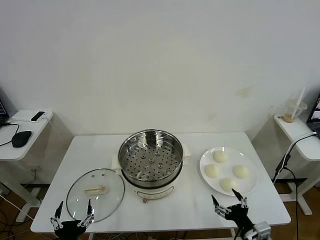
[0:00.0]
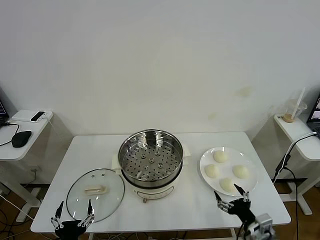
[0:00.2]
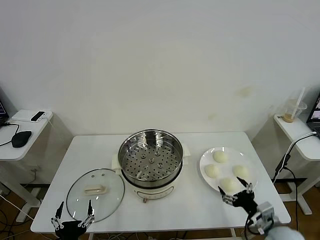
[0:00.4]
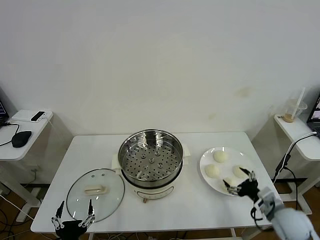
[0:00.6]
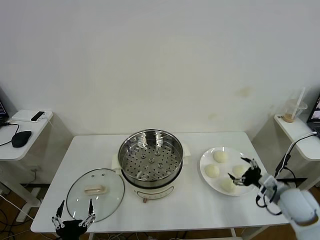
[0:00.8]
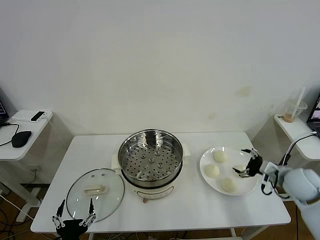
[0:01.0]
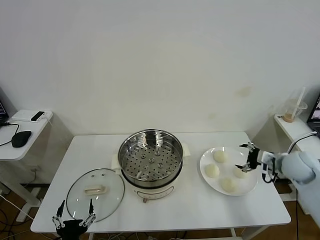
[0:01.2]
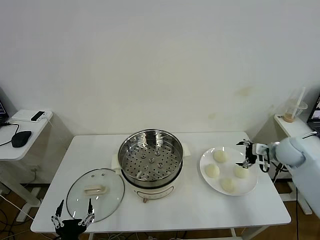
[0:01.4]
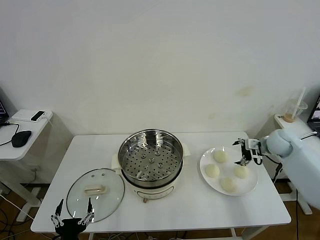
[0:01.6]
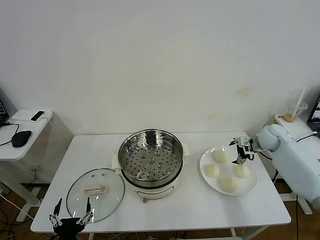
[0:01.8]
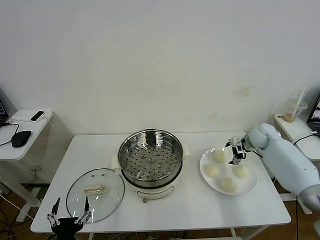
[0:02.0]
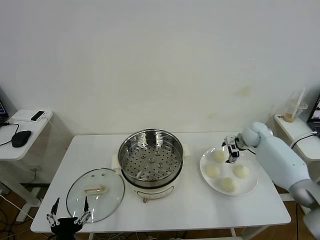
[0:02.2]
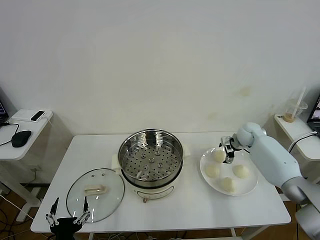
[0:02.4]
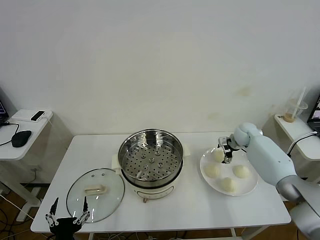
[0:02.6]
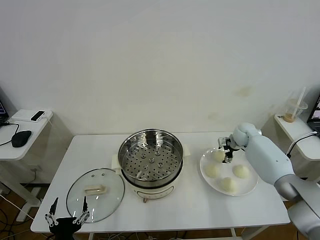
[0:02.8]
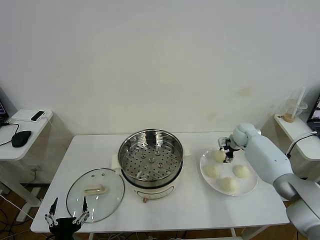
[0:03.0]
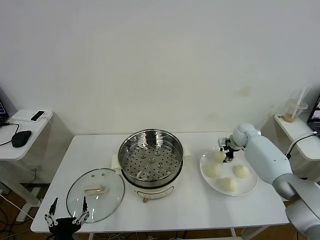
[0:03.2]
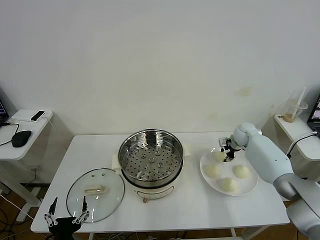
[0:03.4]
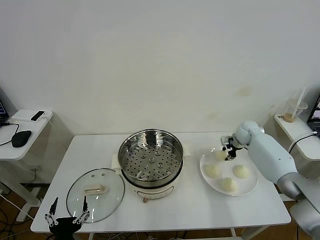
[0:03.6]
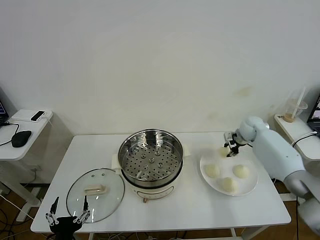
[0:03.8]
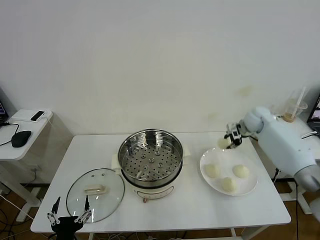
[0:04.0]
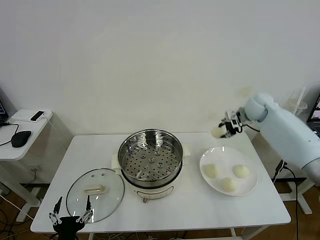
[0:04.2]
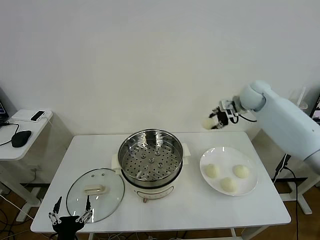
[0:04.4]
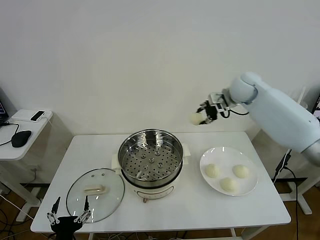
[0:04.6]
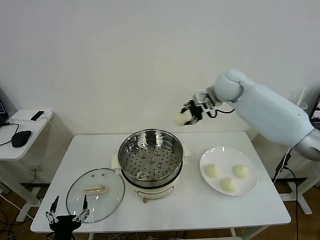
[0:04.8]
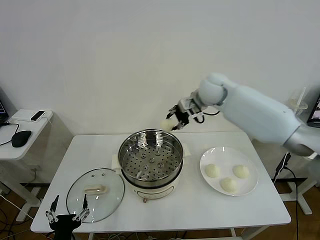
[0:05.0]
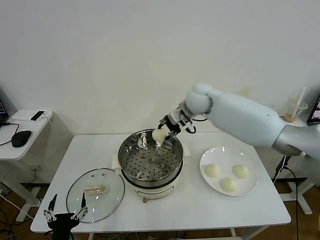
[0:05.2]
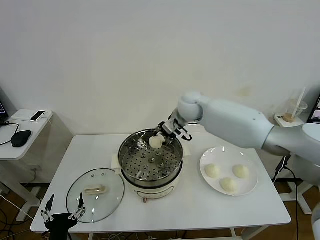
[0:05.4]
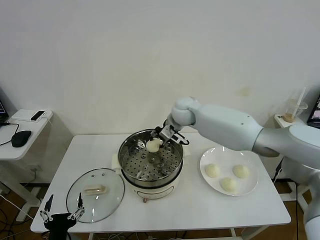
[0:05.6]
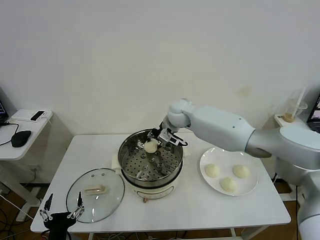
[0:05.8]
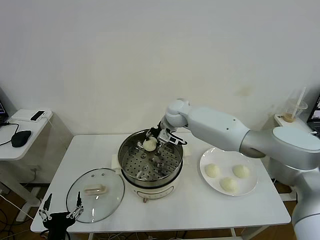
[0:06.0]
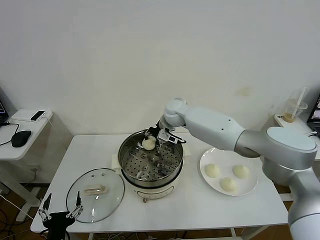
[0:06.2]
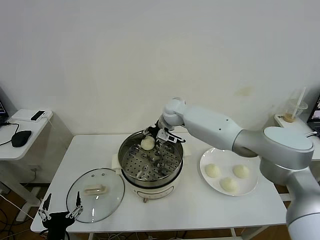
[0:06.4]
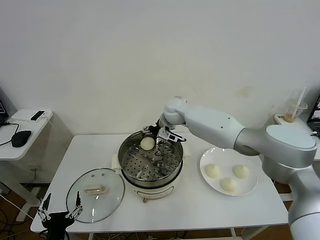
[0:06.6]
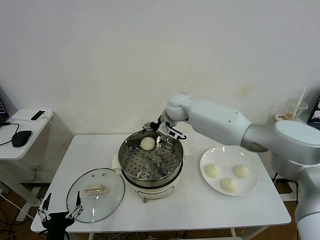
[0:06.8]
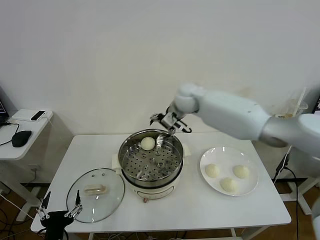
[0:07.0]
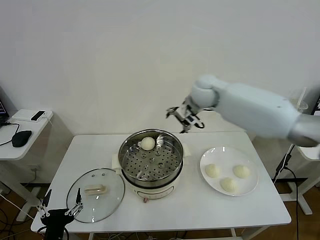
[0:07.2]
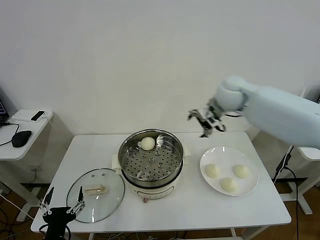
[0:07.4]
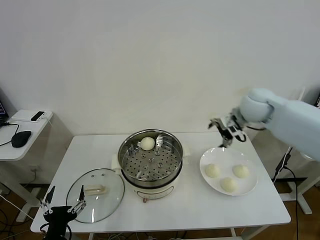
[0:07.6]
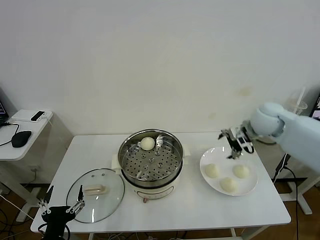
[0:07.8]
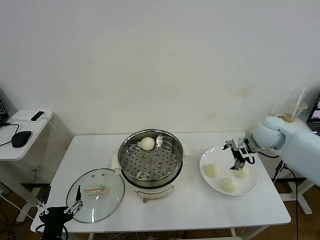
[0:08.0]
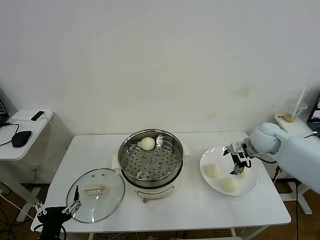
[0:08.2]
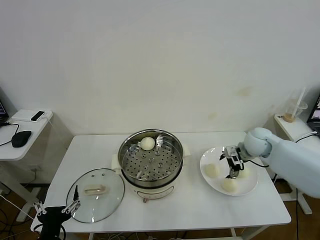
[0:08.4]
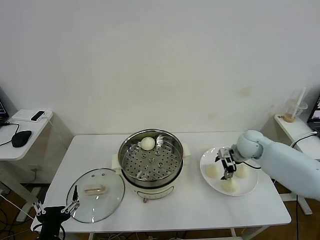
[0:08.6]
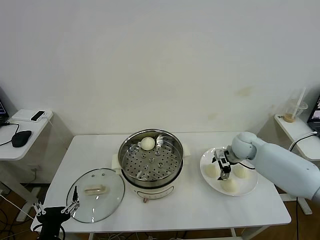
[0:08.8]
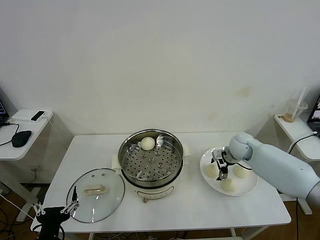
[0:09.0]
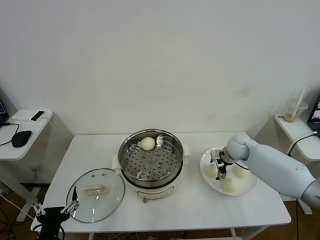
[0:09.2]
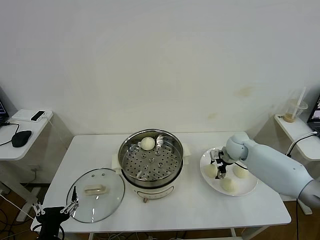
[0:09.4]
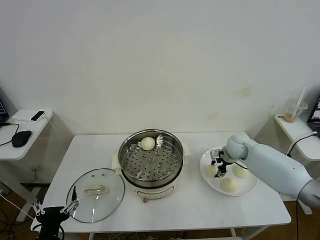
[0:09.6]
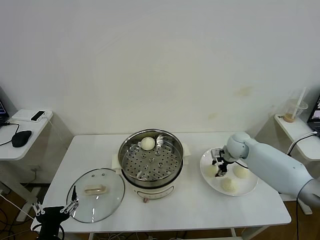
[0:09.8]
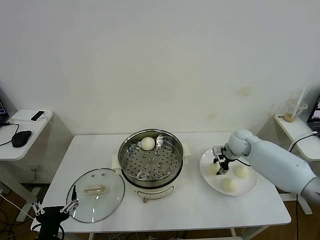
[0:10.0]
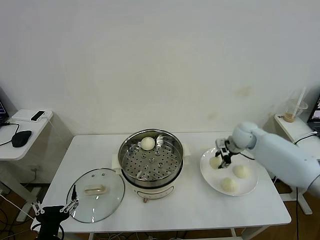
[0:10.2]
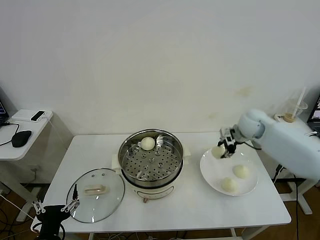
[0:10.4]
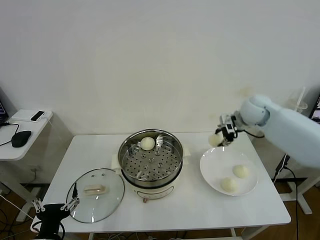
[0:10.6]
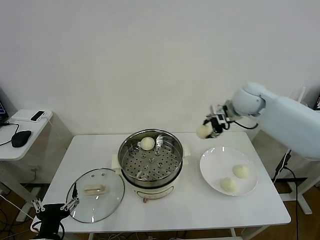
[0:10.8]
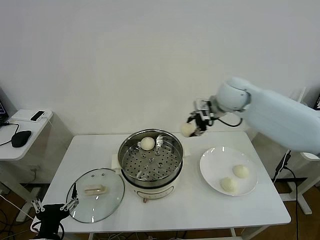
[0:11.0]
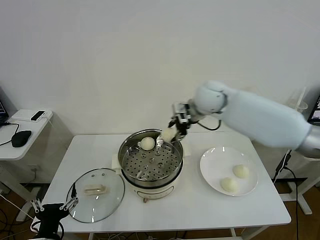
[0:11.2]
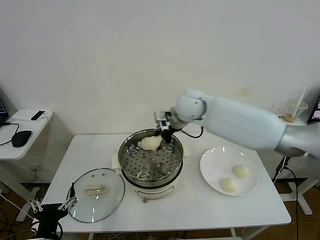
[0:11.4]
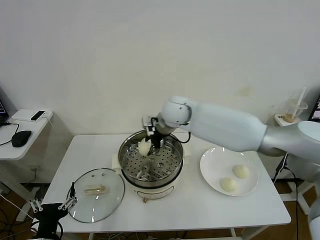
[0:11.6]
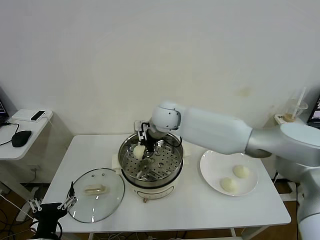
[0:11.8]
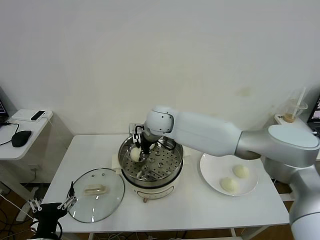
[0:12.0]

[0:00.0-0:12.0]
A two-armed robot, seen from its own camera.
Task of the whole recording: take steamed baozi put them in steamer then cover it.
Step, 0:00.0 to 0:03.4: Grasp the baozi in the plate with right gripper.
Step, 0:03.6 to 0:06.4: Place the baozi on the steamer with right gripper.
Step, 0:06.6 to 0:09.8: Grasp the baozi in the plate with right gripper.
0:01.6 to 0:03.0: The right gripper moves forward, to the left and downward, approximately 10 cm, and closes up.
0:03.0 to 0:04.4: The right gripper shifts some 20 cm upward, and closes.
0:04.4 to 0:06.0: The right gripper is displaced to the left and downward by roughly 25 cm.
0:06.0 to 0:07.6: The right gripper is displaced to the right by some 25 cm, and opens up.
0:07.6 to 0:09.0: The right gripper is displaced downward by roughly 20 cm.
0:09.0 to 0:10.4: The right gripper shifts roughly 15 cm upward, and closes its fingers.
0:10.4 to 0:12.0: The right gripper moves to the left, approximately 35 cm.

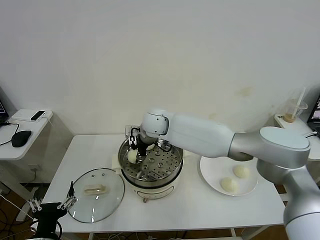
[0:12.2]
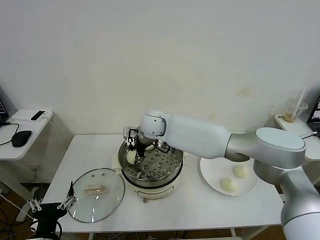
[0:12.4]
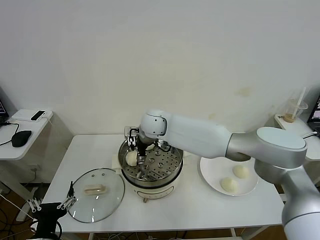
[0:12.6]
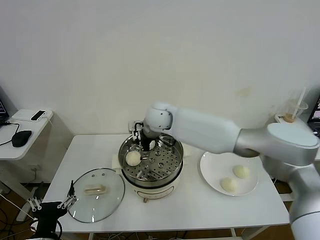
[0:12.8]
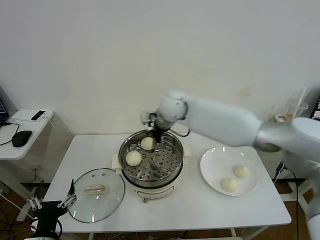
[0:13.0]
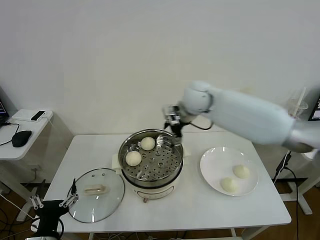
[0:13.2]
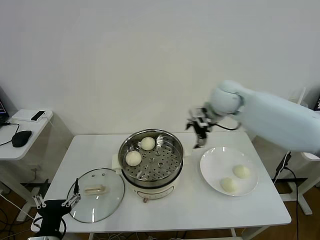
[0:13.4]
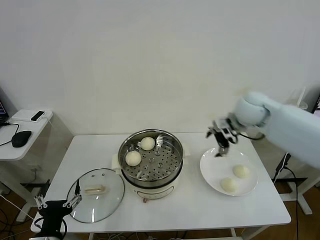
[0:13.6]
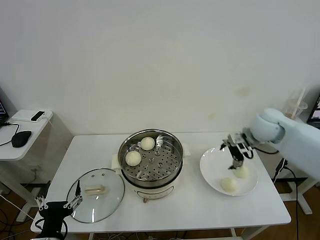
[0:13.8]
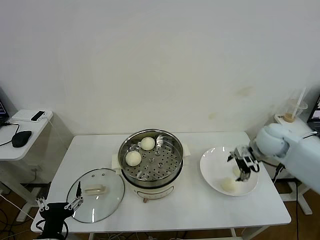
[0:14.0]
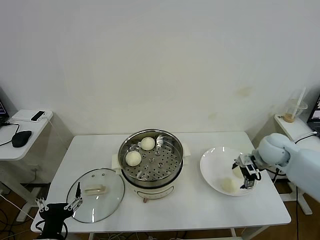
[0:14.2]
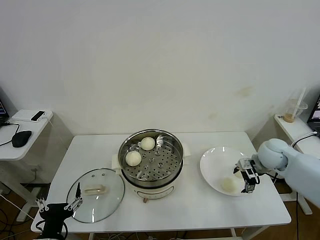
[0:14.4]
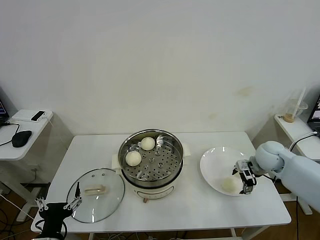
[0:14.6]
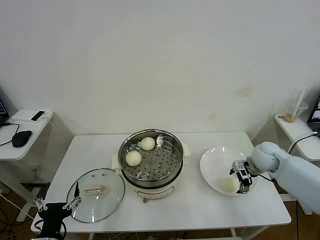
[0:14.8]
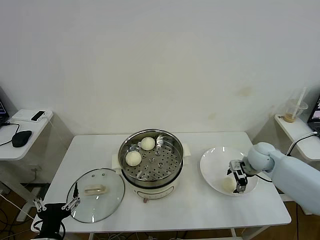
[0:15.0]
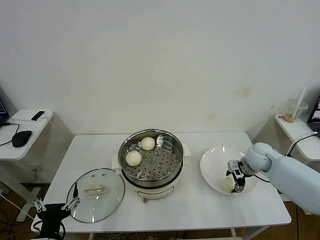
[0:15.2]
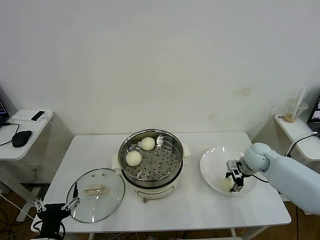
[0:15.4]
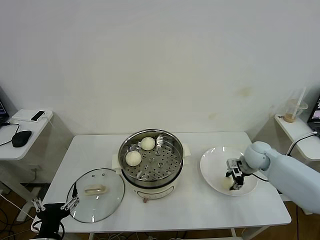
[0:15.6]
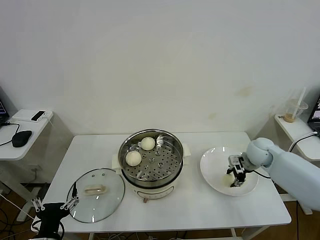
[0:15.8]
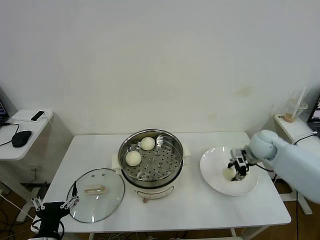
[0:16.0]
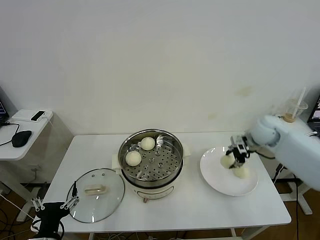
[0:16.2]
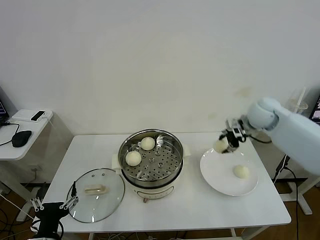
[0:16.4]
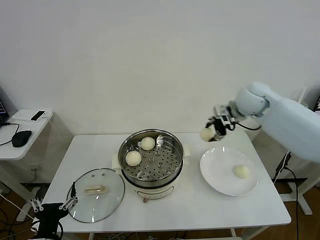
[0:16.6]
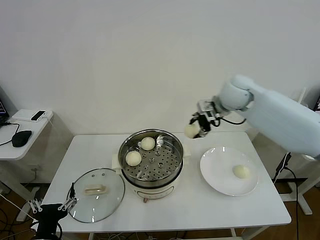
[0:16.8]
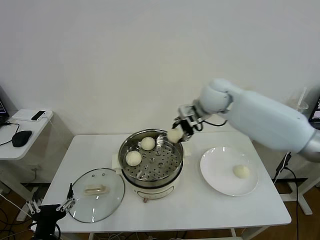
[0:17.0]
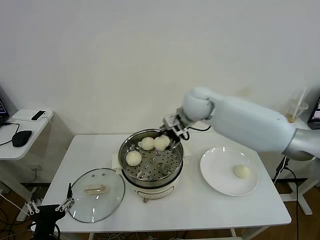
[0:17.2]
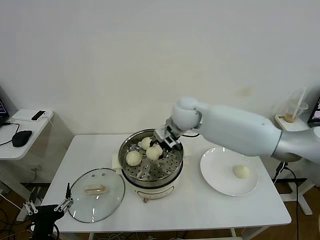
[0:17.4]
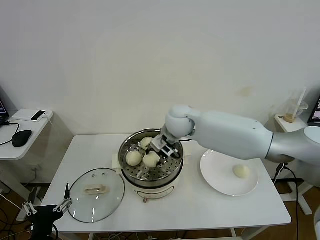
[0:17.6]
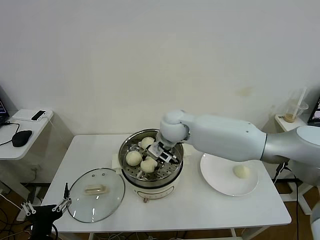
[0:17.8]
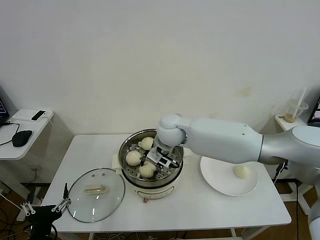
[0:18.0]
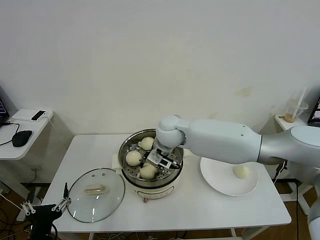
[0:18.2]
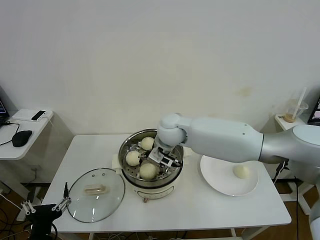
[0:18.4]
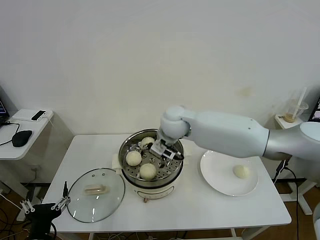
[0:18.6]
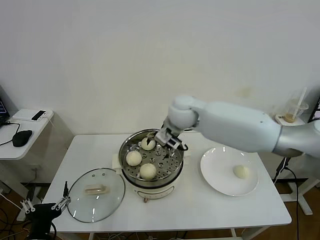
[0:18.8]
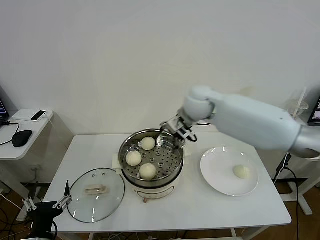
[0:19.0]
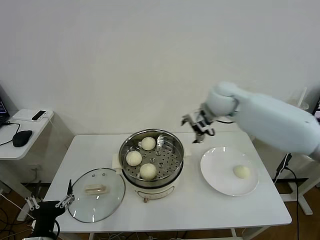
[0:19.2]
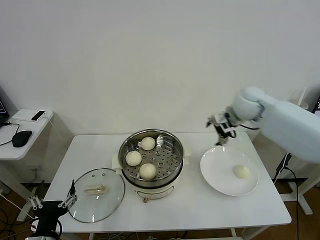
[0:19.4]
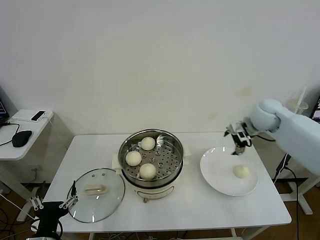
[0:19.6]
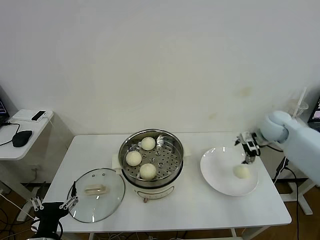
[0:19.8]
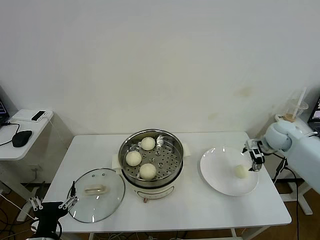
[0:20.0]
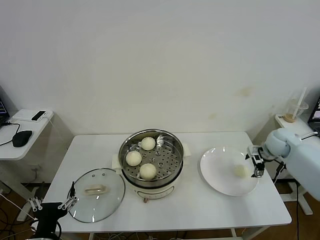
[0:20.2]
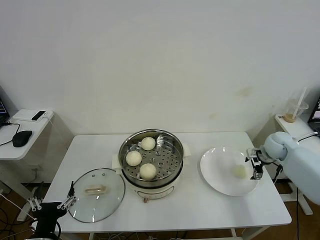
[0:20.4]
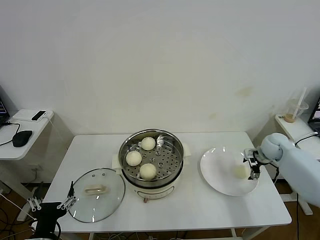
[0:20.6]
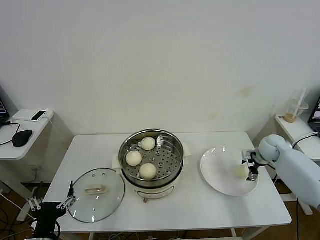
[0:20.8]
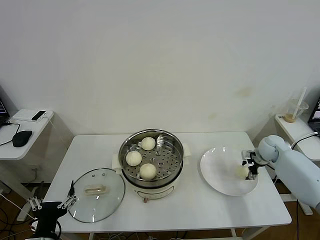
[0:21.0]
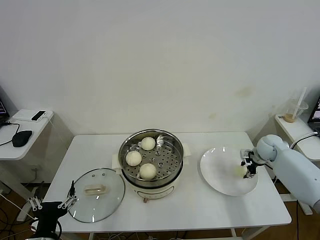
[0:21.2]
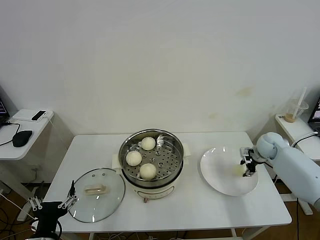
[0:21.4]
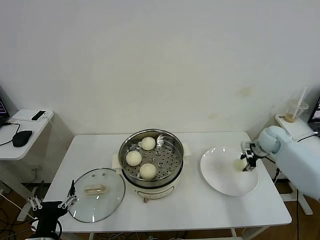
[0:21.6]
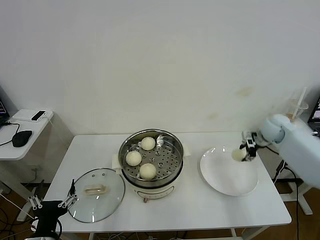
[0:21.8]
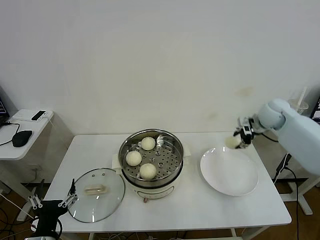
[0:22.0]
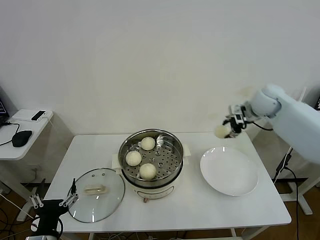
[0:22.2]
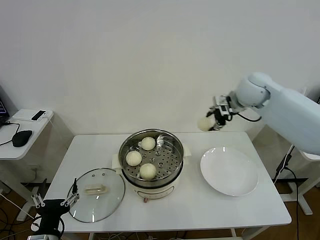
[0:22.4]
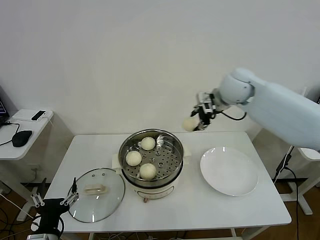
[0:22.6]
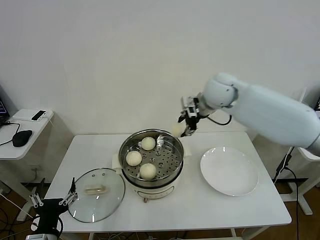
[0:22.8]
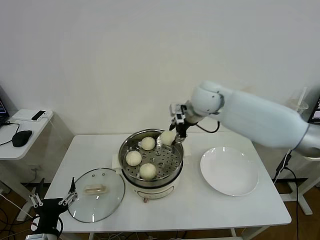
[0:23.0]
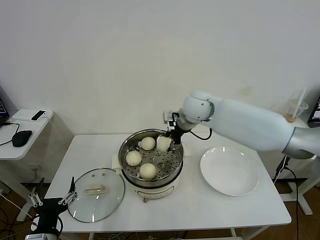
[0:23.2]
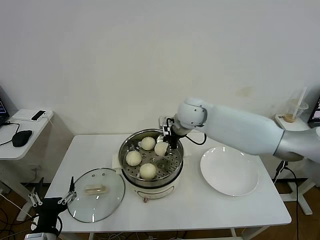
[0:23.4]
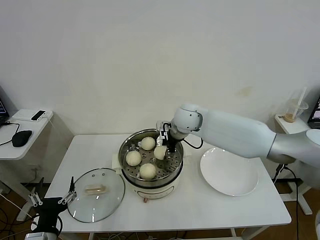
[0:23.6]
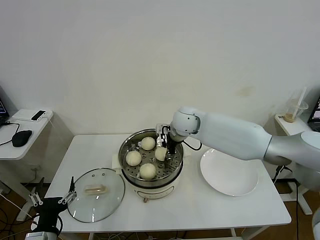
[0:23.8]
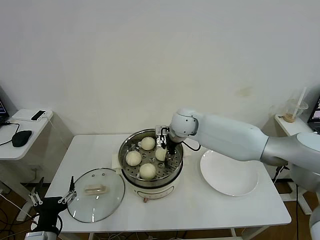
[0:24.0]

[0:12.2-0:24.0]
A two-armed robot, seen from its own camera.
Task of the whole recording: take steamed baozi put them in steamer then cover it.
Step, 0:12.8 to 0:15.4: Grasp the baozi in the plate with right gripper.
Step, 0:15.6 to 0:18.4: Place the baozi on the steamer with right gripper.
Step, 0:18.6 to 0:21.4: Grasp the baozi in the plate with right gripper.
0:12.2 to 0:13.6: The right gripper travels to the right by some 30 cm, and opens.
0:13.6 to 0:15.2: The right gripper travels downward by some 20 cm.
0:15.2 to 0:16.6: The right gripper is displaced upward and to the left by some 25 cm, and closes up.
0:16.6 to 0:18.2: The right gripper heads to the left and downward, covering approximately 25 cm.
0:18.2 to 0:19.6: The right gripper travels to the right by some 30 cm, and opens up.
0:19.6 to 0:21.0: The right gripper travels downward and to the right by approximately 15 cm, and closes.
0:21.0 to 0:22.6: The right gripper is displaced upward and to the left by about 35 cm.
0:22.6 to 0:24.0: The right gripper travels downward and to the left by about 20 cm.
